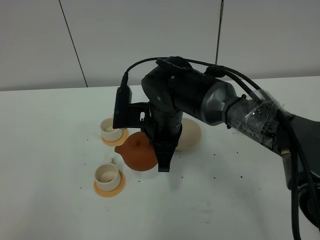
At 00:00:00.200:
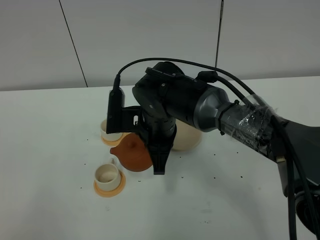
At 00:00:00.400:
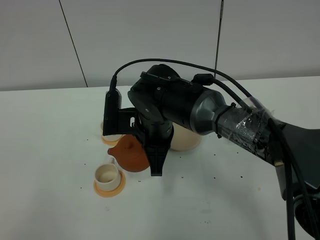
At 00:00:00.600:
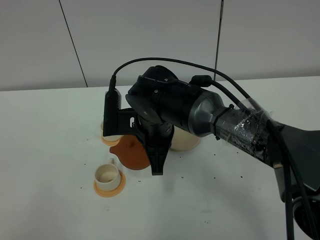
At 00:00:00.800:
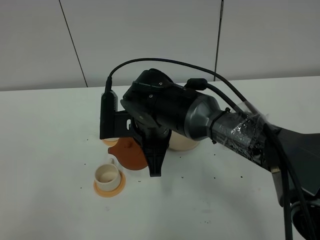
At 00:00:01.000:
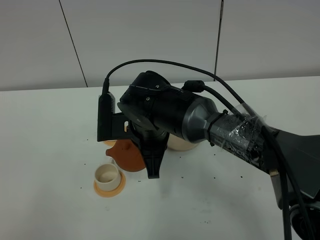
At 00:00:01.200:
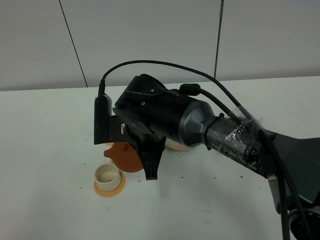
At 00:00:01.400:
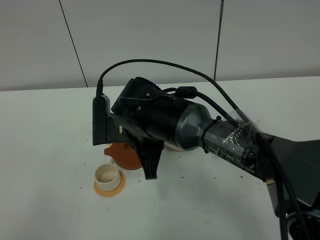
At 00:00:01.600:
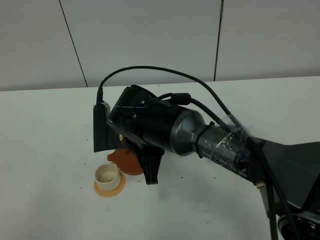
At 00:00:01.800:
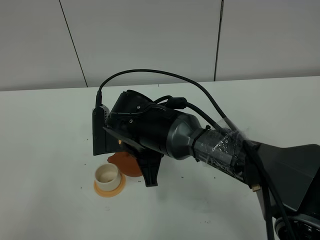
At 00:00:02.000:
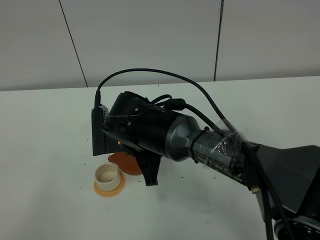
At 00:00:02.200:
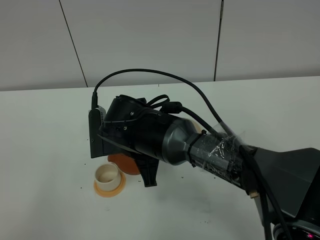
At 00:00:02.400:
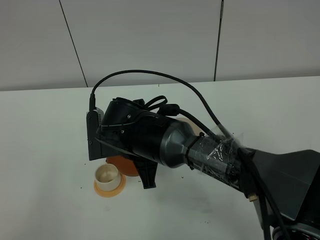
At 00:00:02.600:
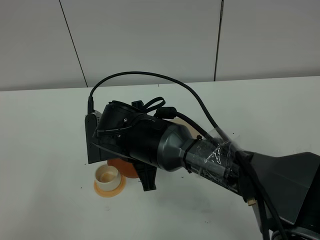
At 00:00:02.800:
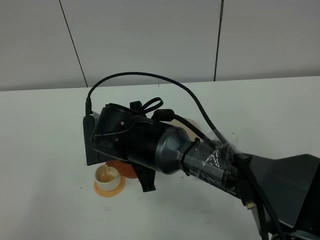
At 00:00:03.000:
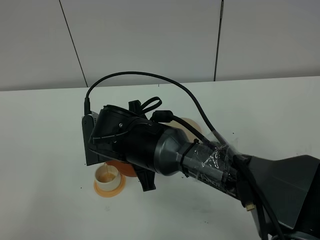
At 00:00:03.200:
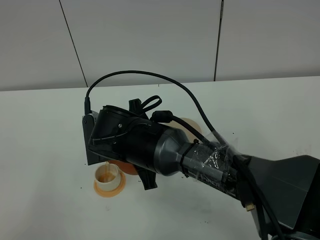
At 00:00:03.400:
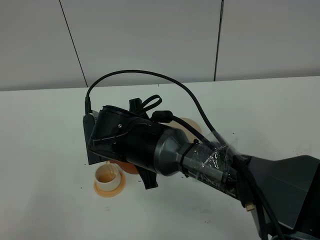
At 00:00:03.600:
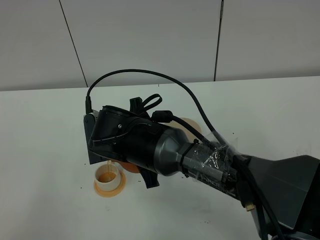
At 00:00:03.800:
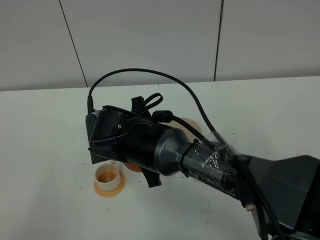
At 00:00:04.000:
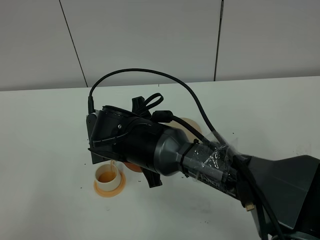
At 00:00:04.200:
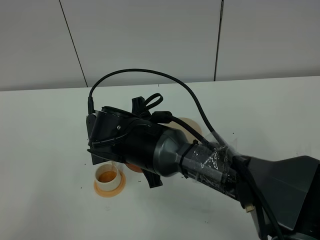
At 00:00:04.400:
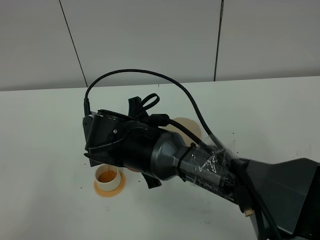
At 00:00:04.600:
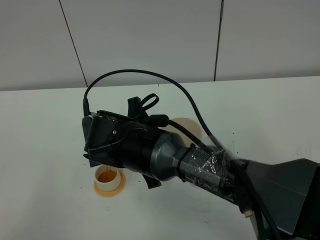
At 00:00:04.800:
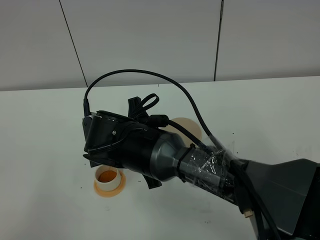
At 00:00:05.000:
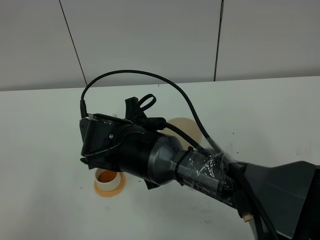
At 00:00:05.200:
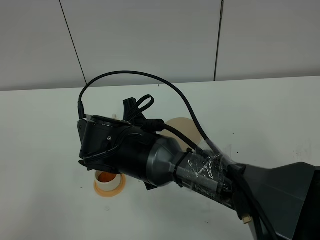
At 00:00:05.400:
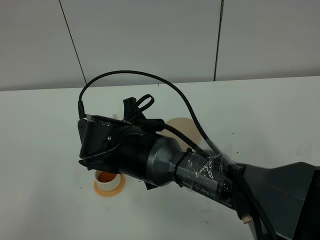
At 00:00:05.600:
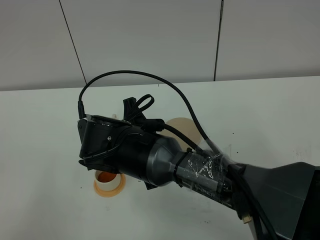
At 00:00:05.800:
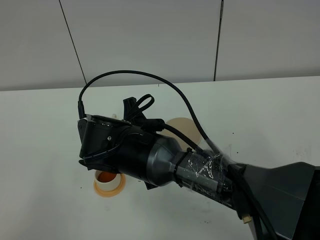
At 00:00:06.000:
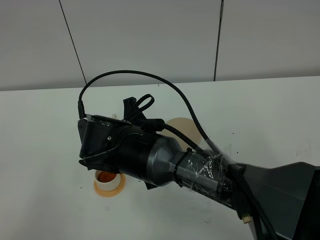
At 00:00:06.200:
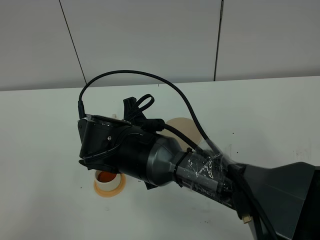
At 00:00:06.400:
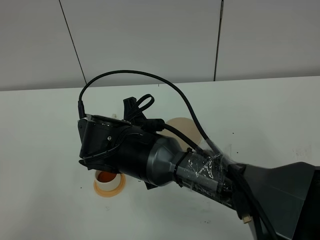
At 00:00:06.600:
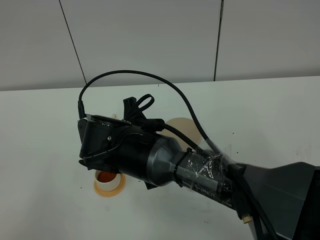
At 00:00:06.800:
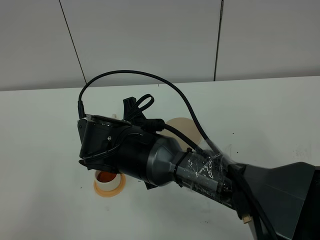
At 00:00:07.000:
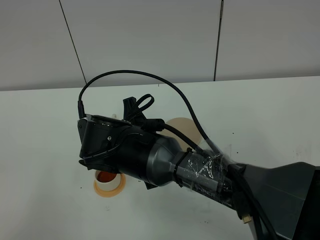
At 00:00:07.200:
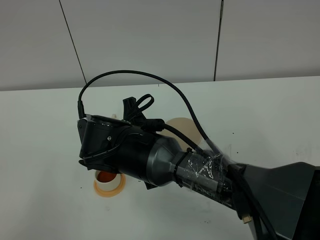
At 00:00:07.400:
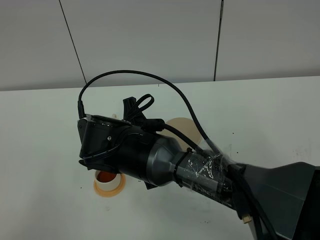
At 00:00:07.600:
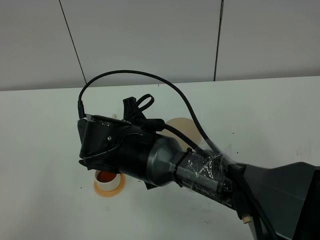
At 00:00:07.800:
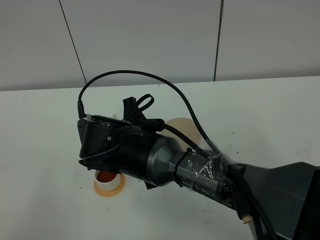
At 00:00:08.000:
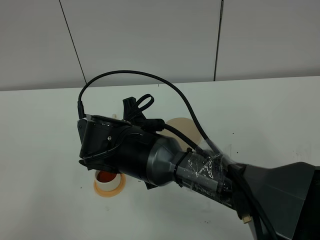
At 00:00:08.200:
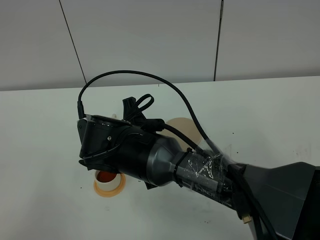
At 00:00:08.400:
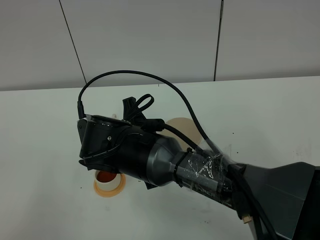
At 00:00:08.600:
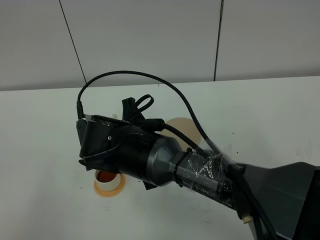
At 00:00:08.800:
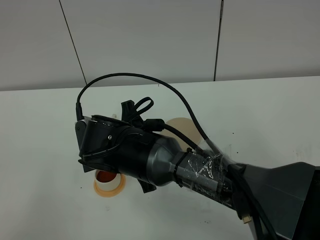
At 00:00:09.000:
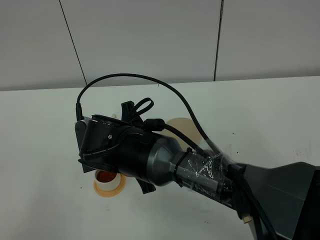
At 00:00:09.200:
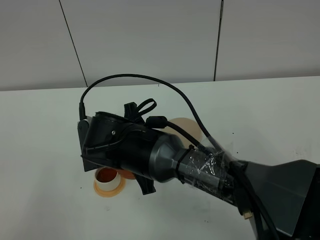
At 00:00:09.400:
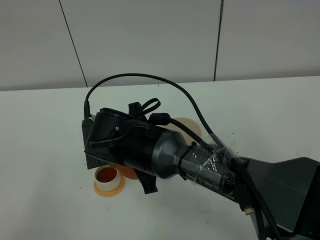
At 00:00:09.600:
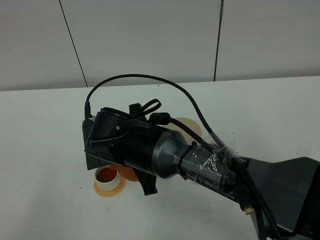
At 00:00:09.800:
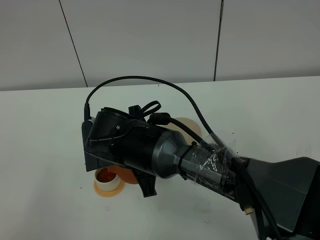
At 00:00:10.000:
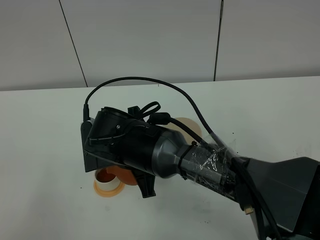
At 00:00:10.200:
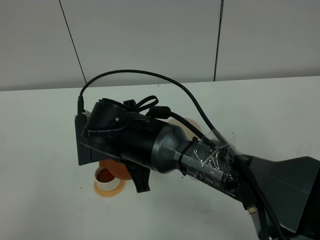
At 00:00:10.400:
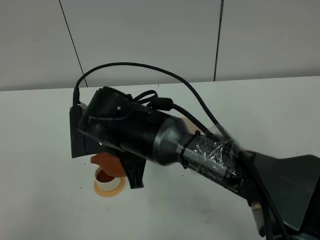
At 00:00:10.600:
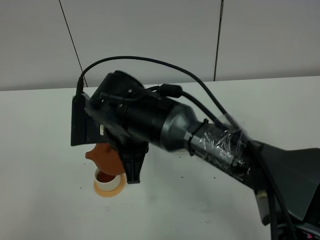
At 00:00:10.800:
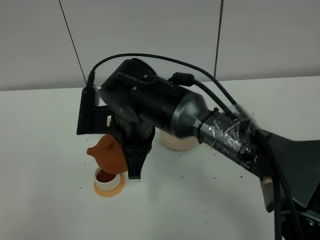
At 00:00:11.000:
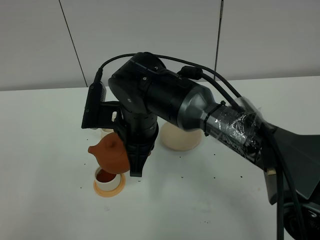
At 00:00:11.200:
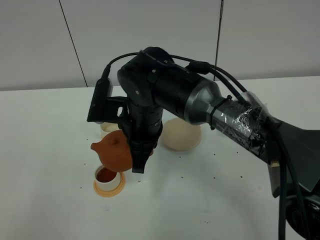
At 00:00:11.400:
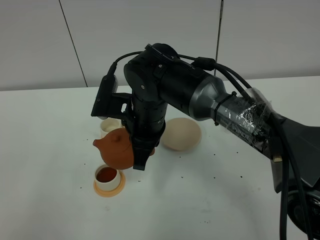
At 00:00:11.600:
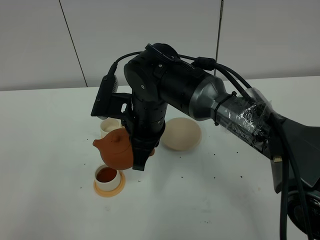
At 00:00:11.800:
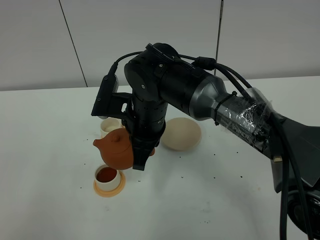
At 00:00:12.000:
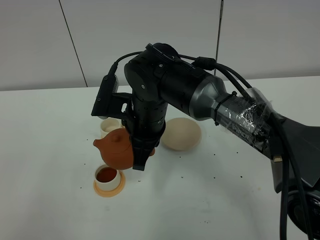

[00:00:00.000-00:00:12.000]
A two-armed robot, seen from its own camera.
Task of the whole recording: grasp the brown teapot and pour the tea into the two white teacups one by one, put the brown teapot back in its original place.
00:00:01.600 to 00:00:04.400: The grippers make only small movements.
00:00:04.400 to 00:00:09.000: The two grippers keep their place.
00:00:09.000 to 00:00:10.400: The grippers make only small movements.
00:00:10.400 to 00:00:12.000: The right gripper shifts by some 5 cm.

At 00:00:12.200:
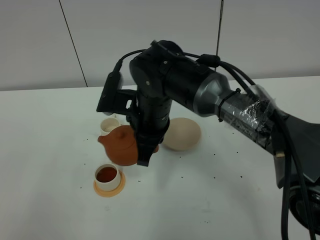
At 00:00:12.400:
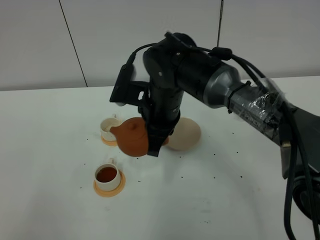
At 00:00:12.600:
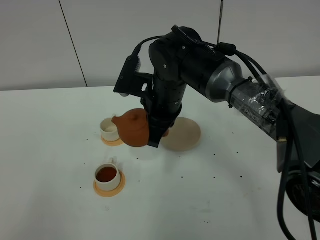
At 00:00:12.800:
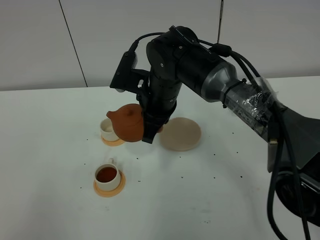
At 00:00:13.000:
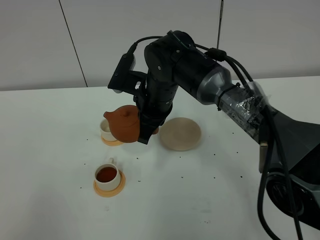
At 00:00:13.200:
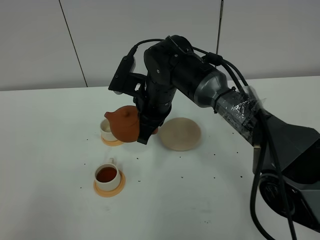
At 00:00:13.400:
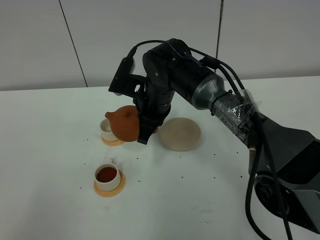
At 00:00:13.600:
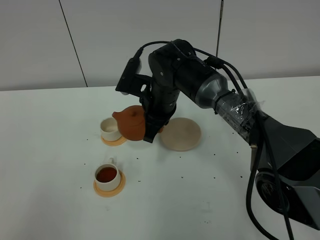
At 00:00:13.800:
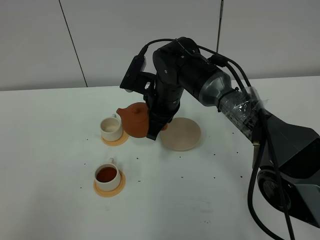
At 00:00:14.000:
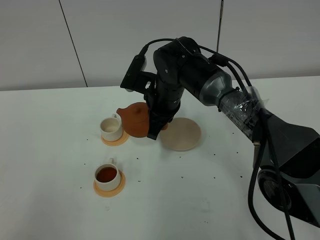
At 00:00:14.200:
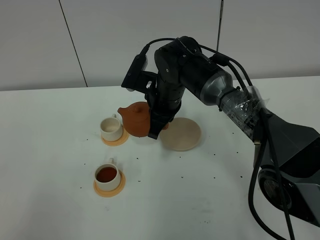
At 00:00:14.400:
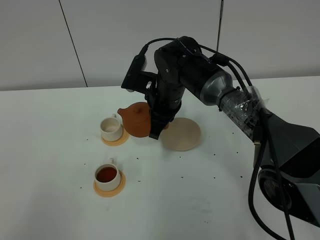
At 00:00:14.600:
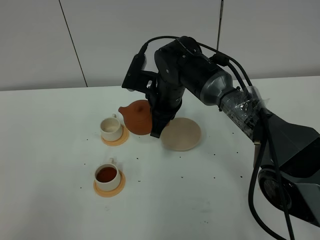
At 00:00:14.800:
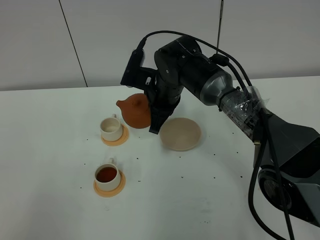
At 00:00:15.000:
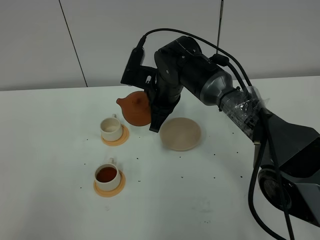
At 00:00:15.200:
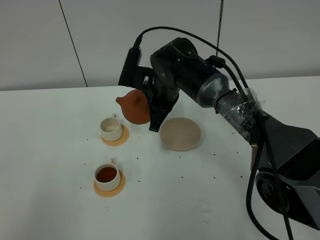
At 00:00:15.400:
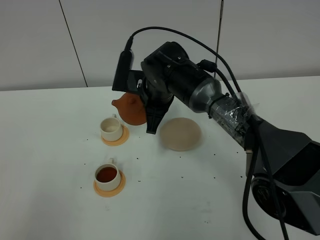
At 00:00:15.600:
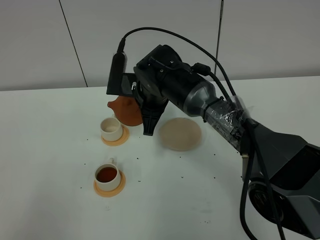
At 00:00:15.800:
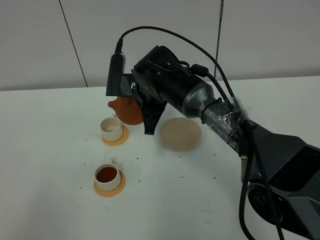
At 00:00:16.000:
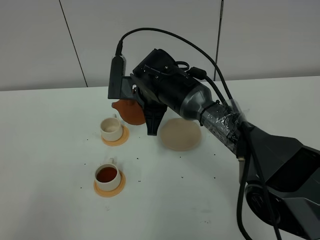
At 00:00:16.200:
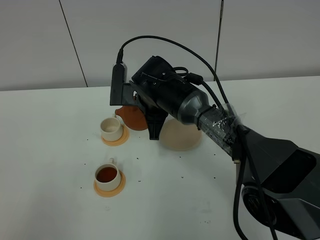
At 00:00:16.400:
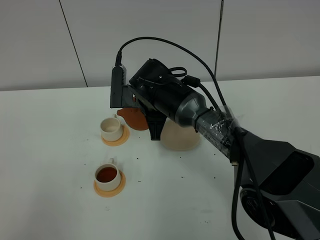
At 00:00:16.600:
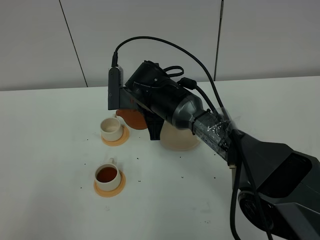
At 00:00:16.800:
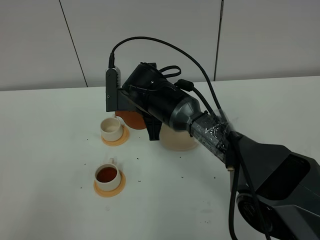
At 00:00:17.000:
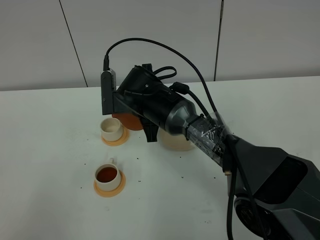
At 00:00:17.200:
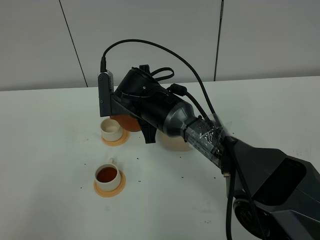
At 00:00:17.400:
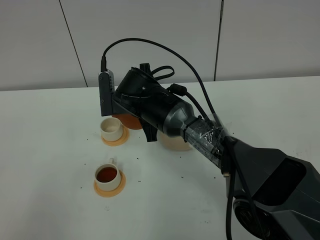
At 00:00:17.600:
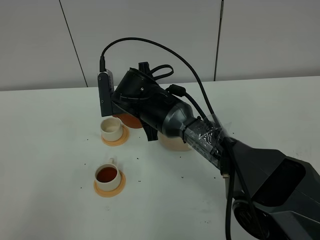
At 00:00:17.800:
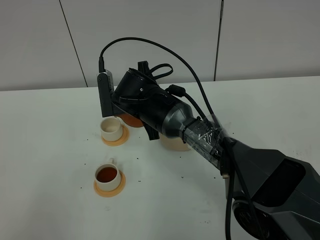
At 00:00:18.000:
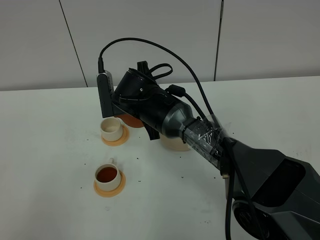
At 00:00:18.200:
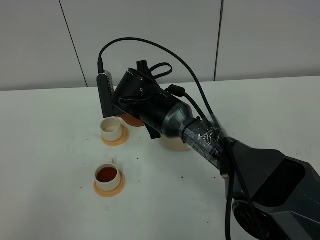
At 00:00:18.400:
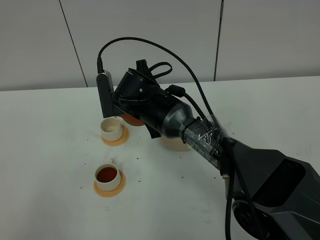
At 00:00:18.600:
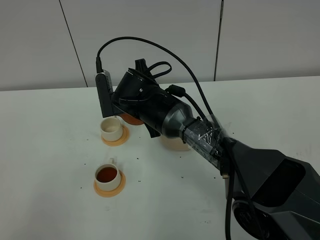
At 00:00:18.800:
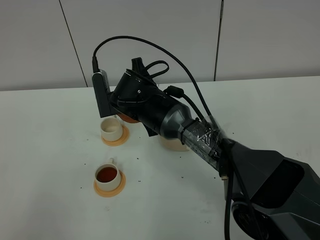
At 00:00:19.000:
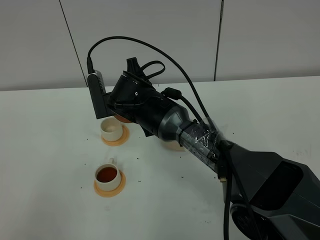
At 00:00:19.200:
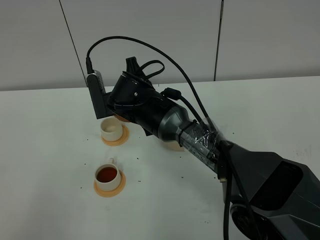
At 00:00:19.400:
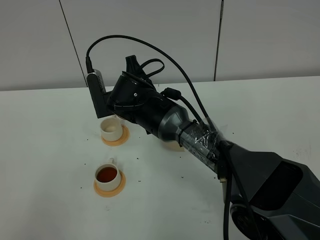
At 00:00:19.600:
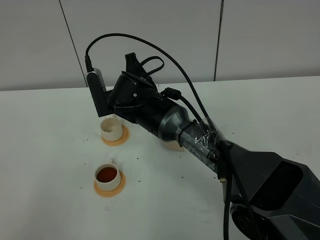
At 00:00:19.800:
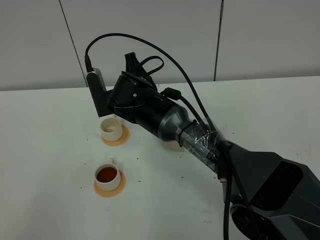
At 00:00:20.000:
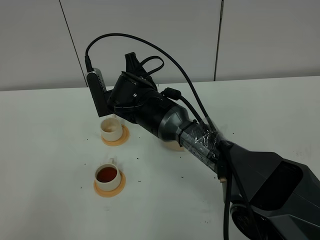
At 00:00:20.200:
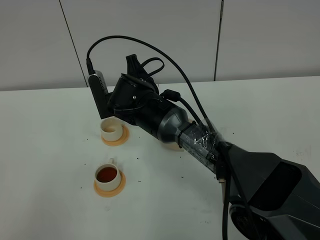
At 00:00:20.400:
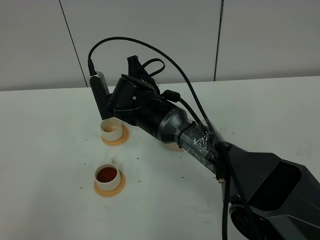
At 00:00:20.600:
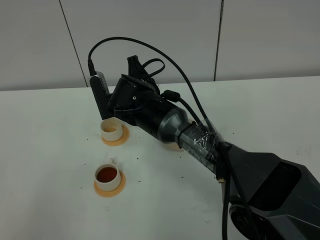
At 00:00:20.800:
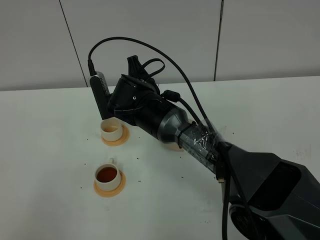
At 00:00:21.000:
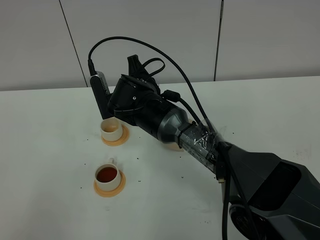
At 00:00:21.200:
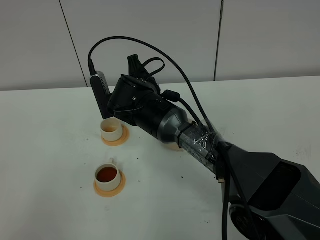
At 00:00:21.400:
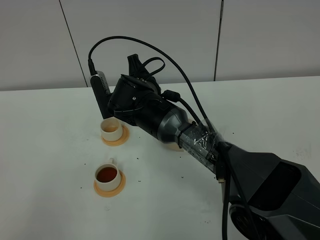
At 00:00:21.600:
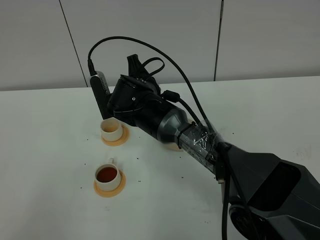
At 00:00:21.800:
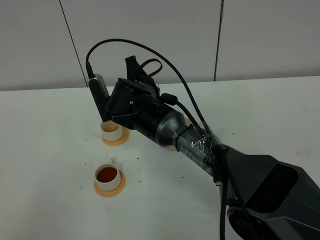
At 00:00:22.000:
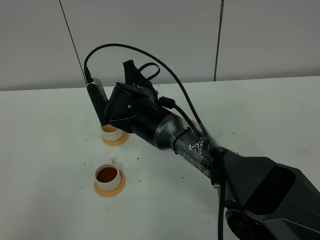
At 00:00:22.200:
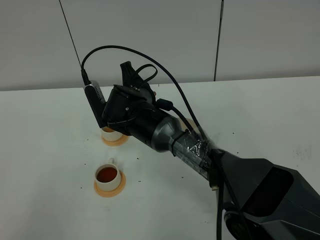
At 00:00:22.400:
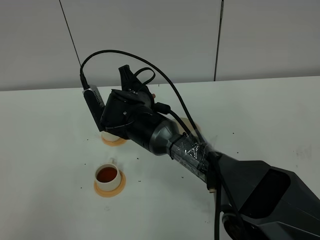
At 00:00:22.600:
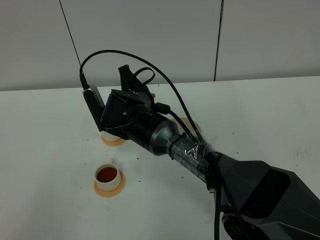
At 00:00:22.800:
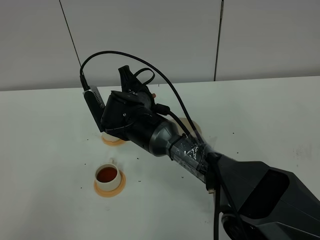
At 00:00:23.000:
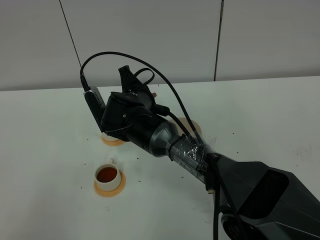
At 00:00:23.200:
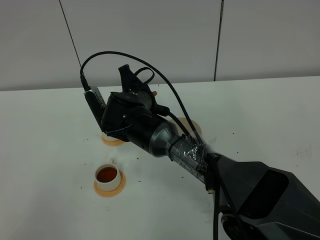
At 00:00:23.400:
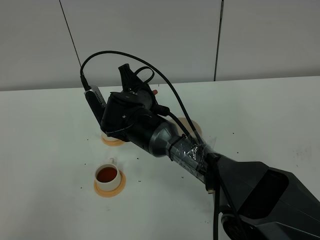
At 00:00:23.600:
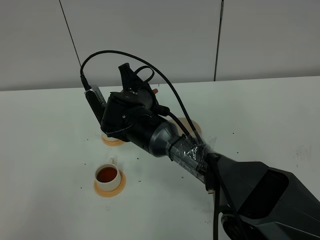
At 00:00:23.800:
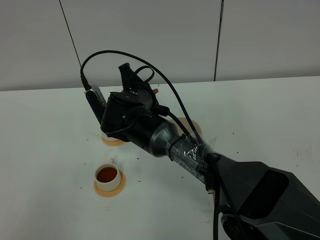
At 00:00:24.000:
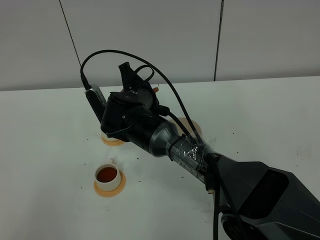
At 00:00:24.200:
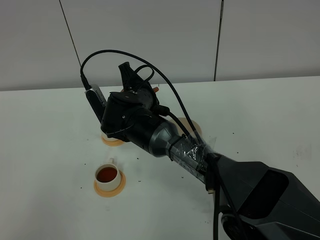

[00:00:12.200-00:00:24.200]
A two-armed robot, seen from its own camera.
Task of the whole recording: grasp the brown teapot and pour the tea into the two white teacups one by one, put the brown teapot back in its original place.
00:00:12.200 to 00:00:13.800: The right gripper moves forward, some 10 cm.
00:00:13.800 to 00:00:15.200: The grippers move only a little.
00:00:16.600 to 00:00:18.200: The grippers stay close to where they were, moving slightly.
00:00:18.200 to 00:00:19.800: The grippers move only a little.
00:00:19.800 to 00:00:21.200: Both grippers stay put.
00:00:21.200 to 00:00:24.200: The grippers move only a little.
